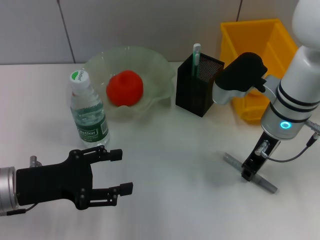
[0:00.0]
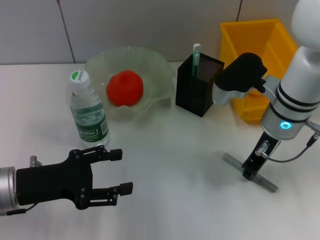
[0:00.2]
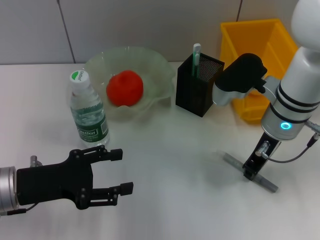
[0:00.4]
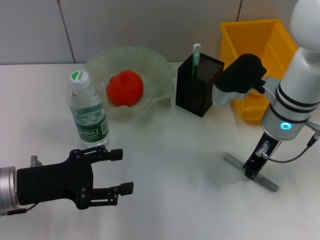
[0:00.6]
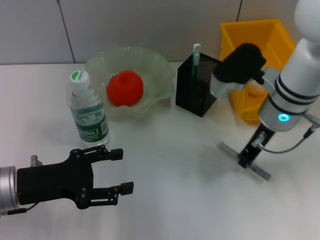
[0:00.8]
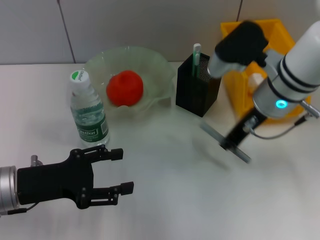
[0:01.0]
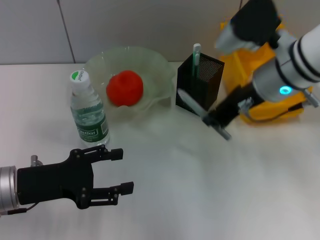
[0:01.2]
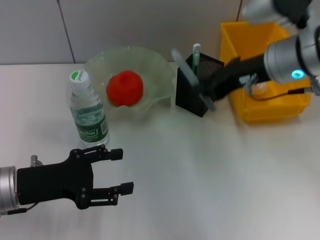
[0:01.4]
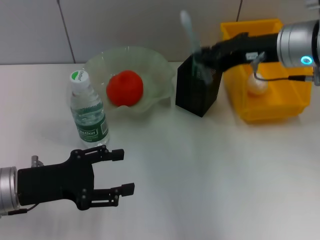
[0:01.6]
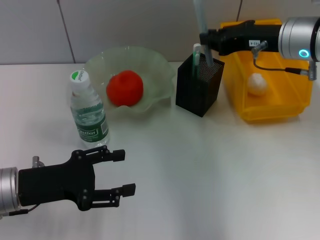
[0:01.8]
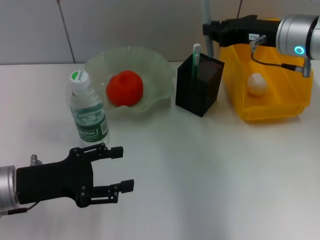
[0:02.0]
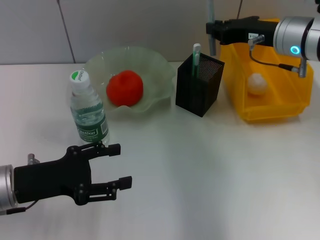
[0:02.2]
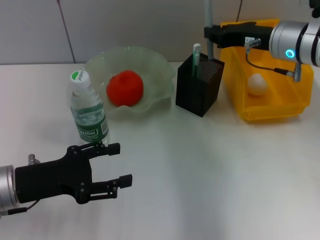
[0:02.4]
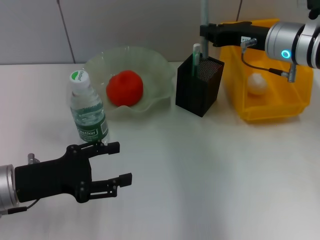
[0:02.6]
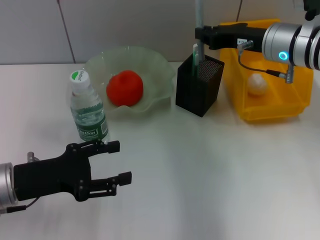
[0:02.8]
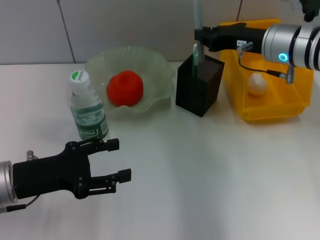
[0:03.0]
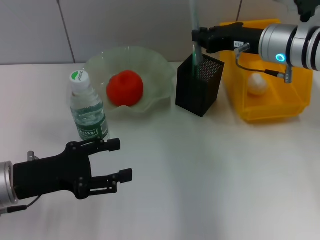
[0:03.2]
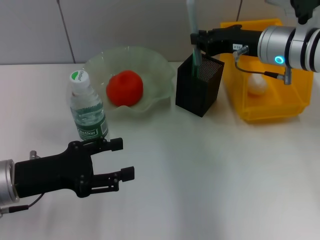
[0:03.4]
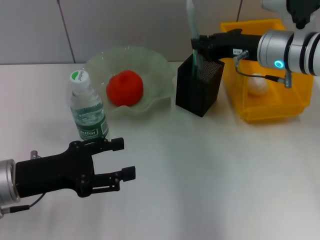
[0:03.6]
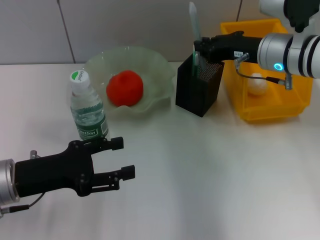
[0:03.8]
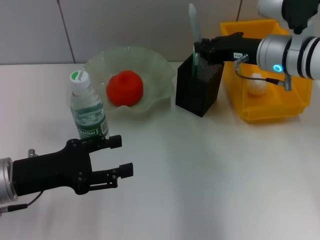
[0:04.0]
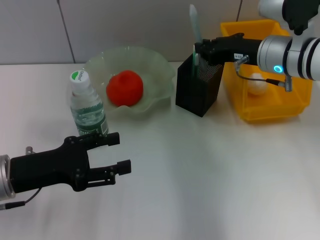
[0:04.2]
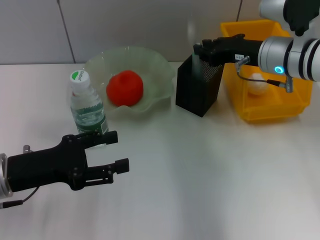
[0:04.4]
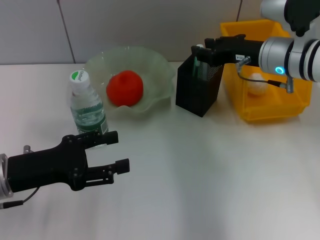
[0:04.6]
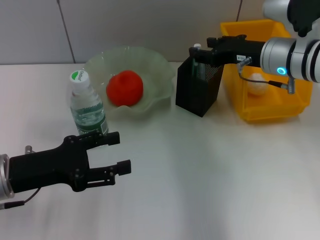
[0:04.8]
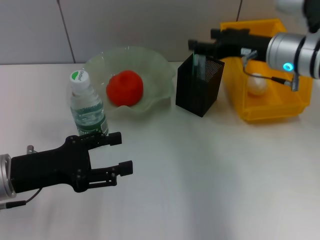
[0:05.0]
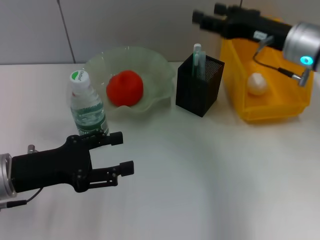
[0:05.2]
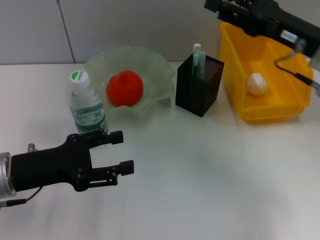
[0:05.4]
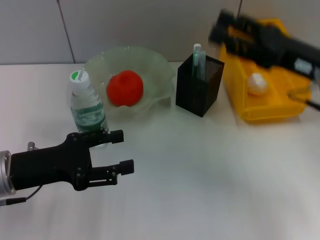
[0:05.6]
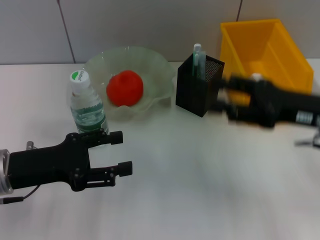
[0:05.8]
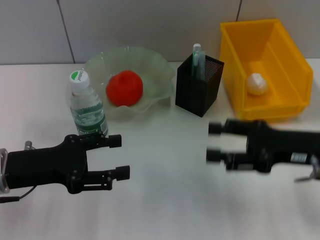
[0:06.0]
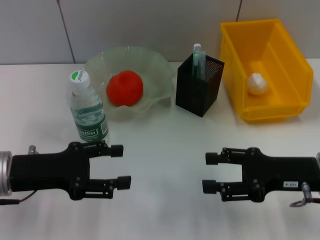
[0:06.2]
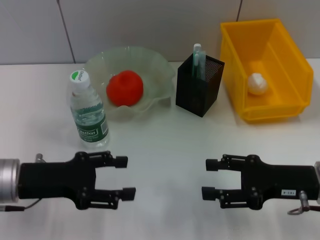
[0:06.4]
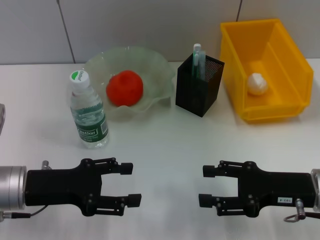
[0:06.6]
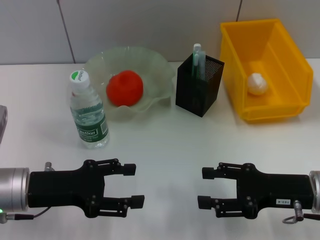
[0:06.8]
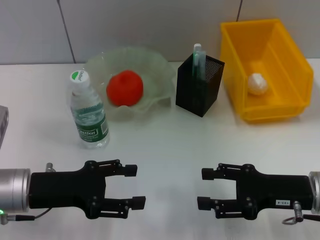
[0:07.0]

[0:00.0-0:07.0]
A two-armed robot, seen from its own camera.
Step, 0:00.6 to 0:04.8: Place the gray glue into the pen holder with the right hand.
0:00.0 to 0:01.4: The right gripper heads upward, covering some 10 cm.
0:01.4 to 0:02.8: The right gripper heads forward, covering about 5 cm.
0:02.8 to 0:04.2: There are only small adjustments of the grippers.
0:04.2 to 0:05.6: The right gripper moves backward and to the right, some 10 cm, and opens.
0:05.6 to 0:07.0: The right gripper goes about 15 cm downward and backward.
